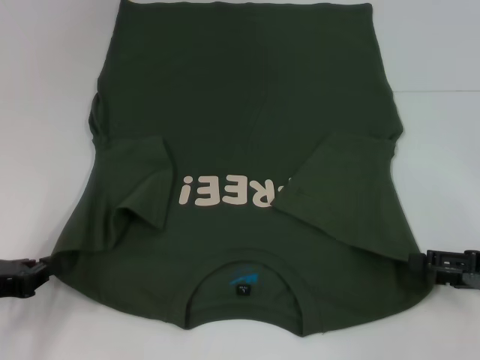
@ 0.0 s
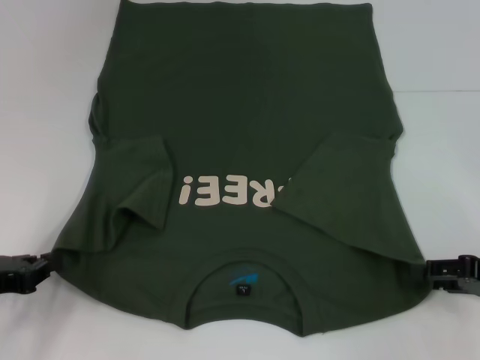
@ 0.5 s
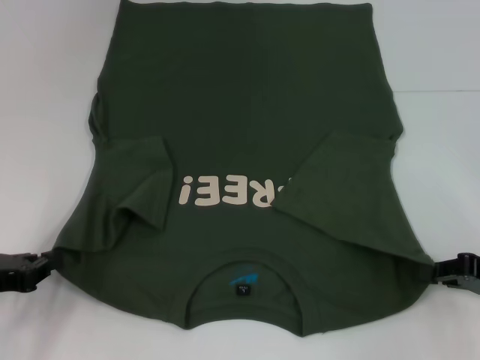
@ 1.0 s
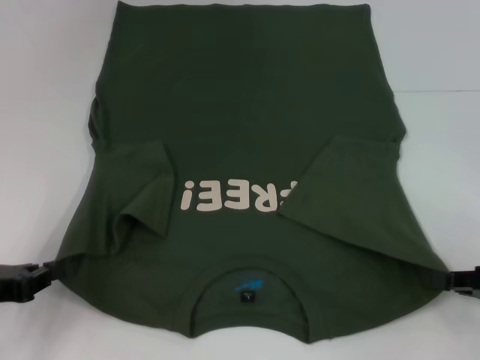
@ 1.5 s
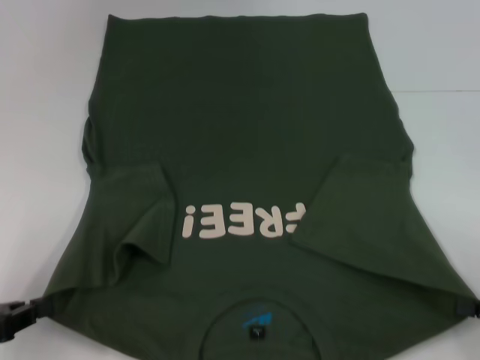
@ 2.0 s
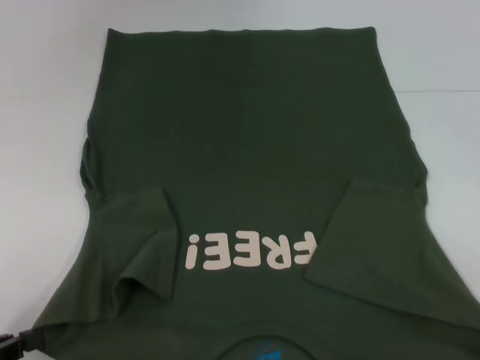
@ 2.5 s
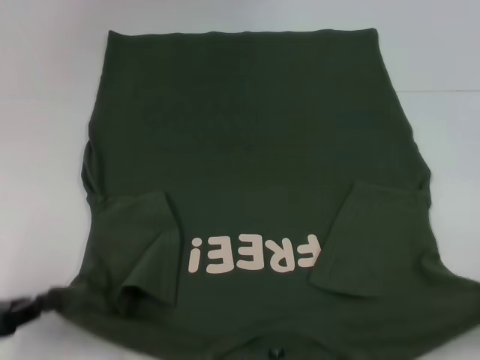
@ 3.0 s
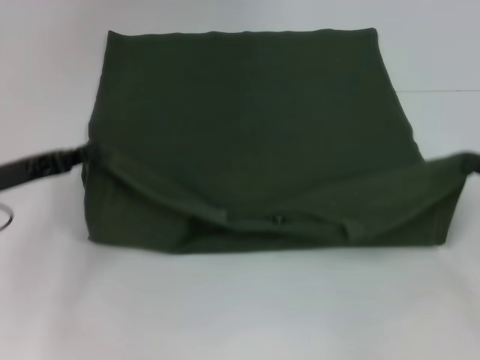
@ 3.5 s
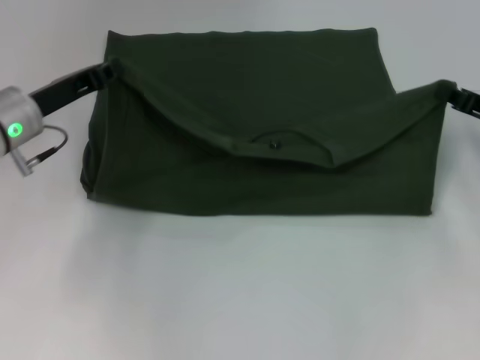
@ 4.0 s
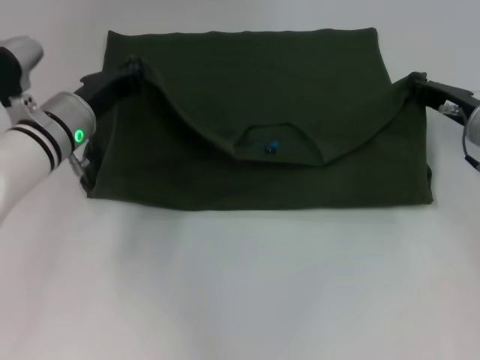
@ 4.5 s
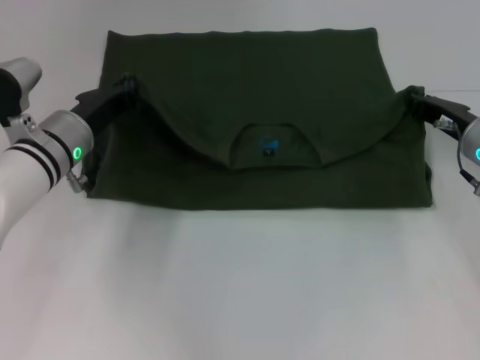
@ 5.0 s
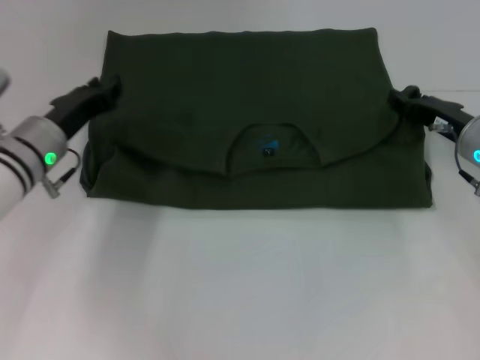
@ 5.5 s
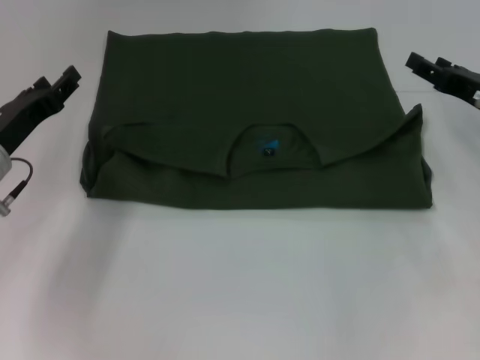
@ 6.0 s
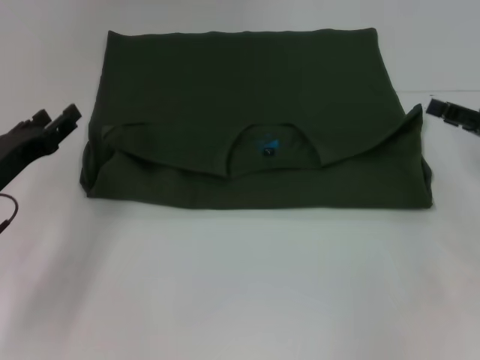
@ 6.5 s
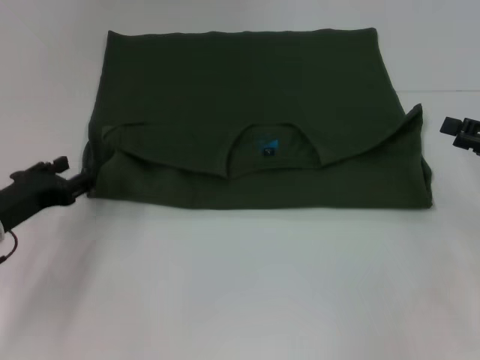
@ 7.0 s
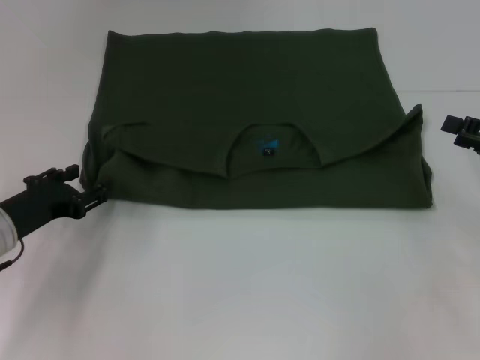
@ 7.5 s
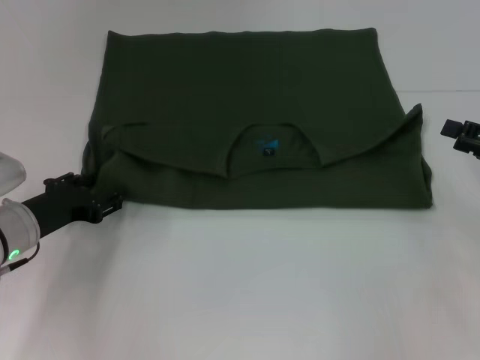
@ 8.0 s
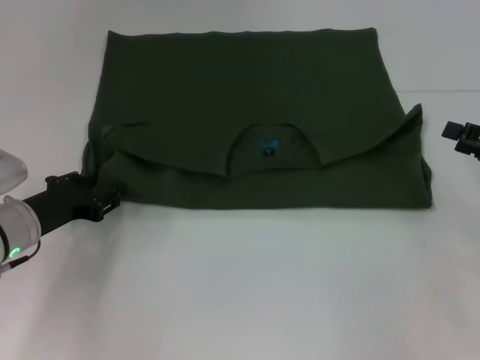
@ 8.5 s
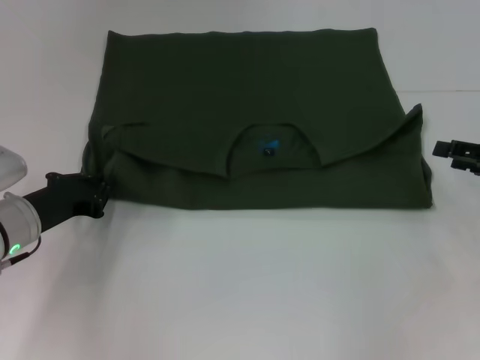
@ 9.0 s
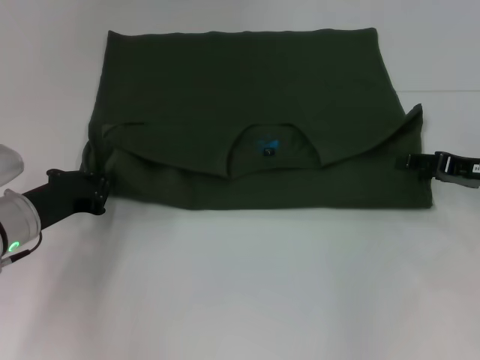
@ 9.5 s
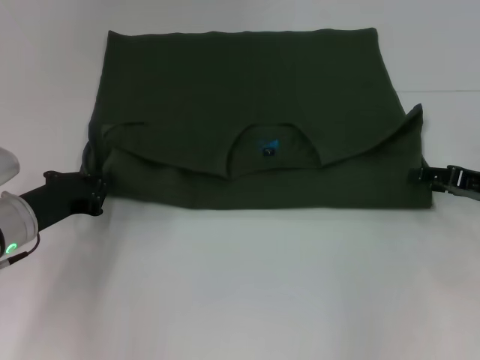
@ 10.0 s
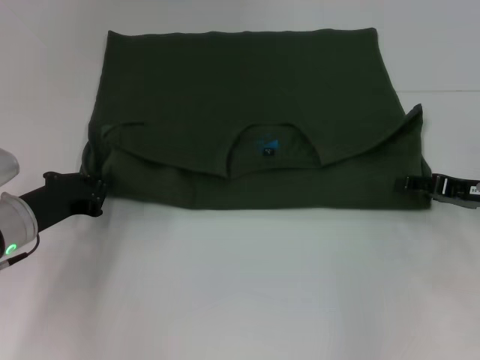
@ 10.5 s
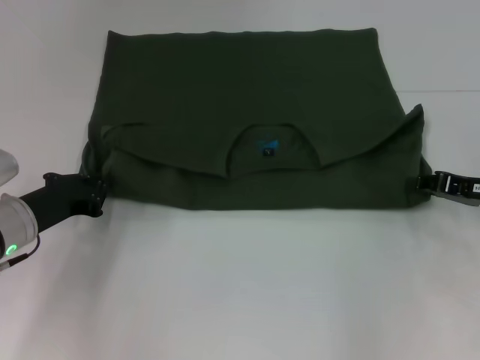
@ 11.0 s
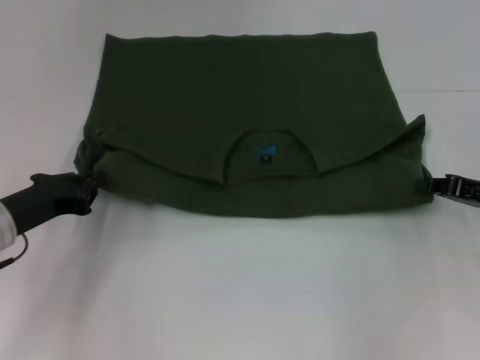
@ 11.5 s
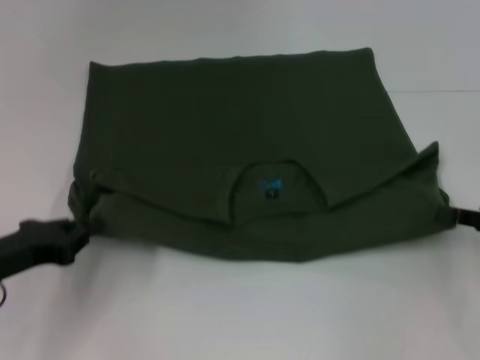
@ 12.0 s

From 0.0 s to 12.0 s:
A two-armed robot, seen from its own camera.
Step, from 1.5 s to 6.0 s: Fold the clothes with your left hand.
Step, from 1.5 s to 6.0 s: Fold the clothes with your right hand.
From 0.0 s to 2.0 s: The right gripper moves backward, some 5 cm, and closes.
From 2.0 s to 4.0 s: The right gripper moves forward, some 15 cm. Meanwhile the left gripper travels forward and to the right by approximately 20 cm.
From 4.0 s to 6.0 s: The left gripper goes to the right and returns, approximately 5 cm each way, and opens. Meanwhile the right gripper opens its fingers.
From 6.0 s to 8.0 s: The right gripper heads backward and to the right, covering approximately 10 cm. The left gripper changes place by roughly 5 cm.
From 8.0 s to 10.0 s: The left gripper closes; the right gripper shifts by some 5 cm.
From 10.0 s to 12.0 s: The two grippers go approximately 5 cm backward. The right gripper closes its fingers.

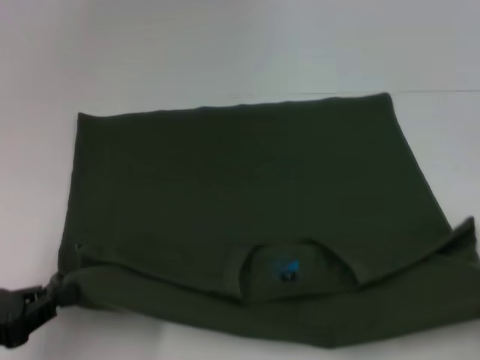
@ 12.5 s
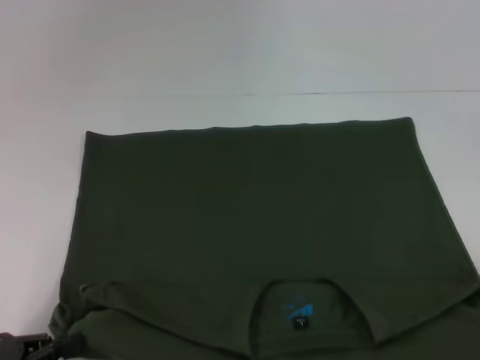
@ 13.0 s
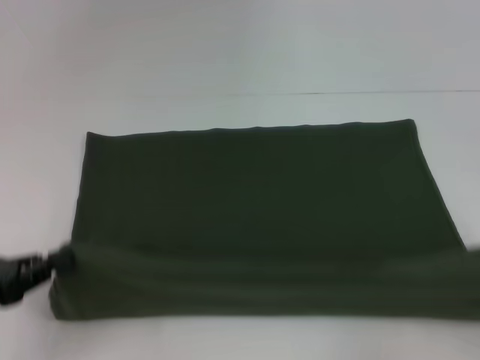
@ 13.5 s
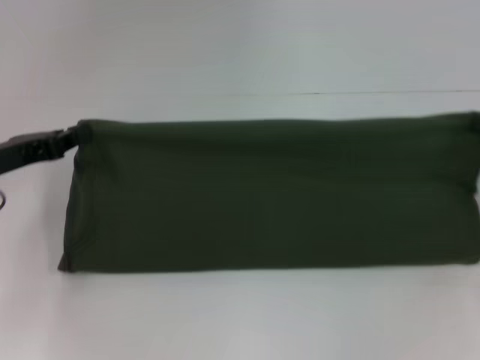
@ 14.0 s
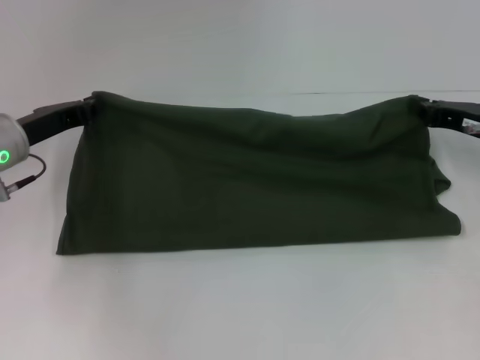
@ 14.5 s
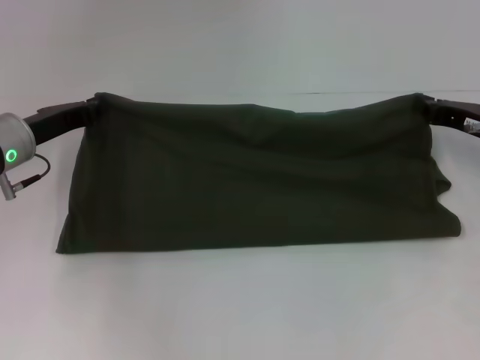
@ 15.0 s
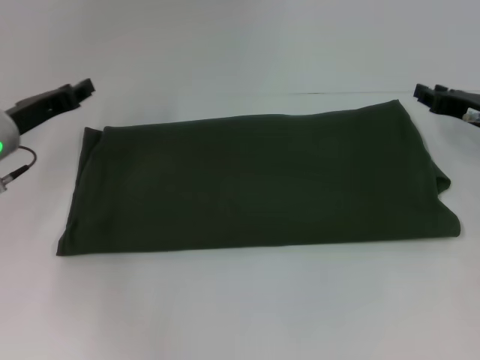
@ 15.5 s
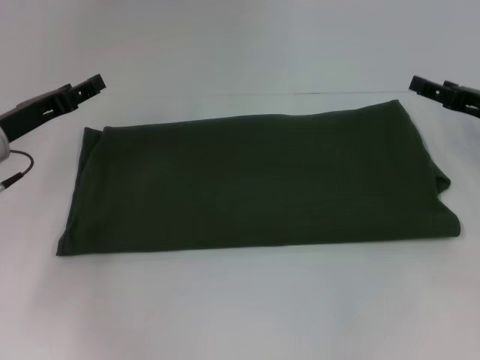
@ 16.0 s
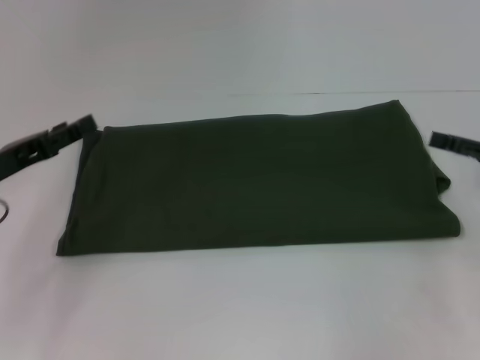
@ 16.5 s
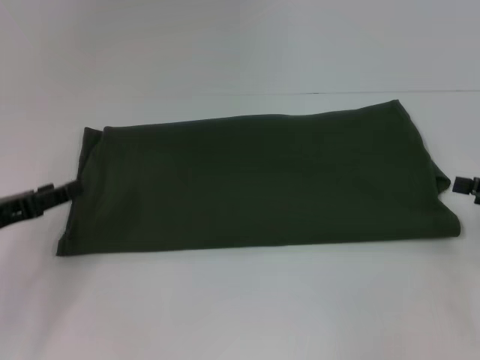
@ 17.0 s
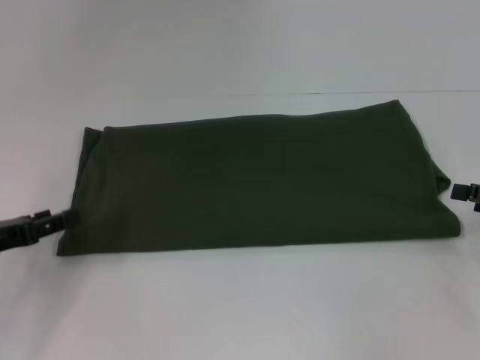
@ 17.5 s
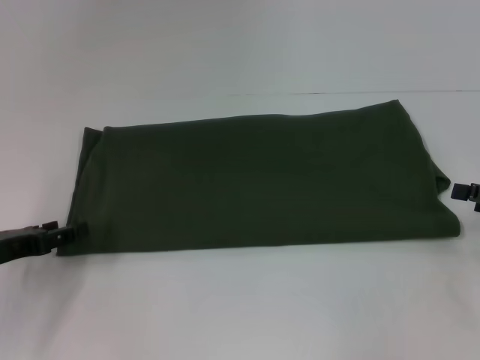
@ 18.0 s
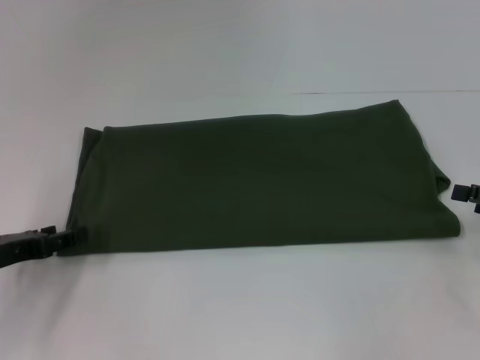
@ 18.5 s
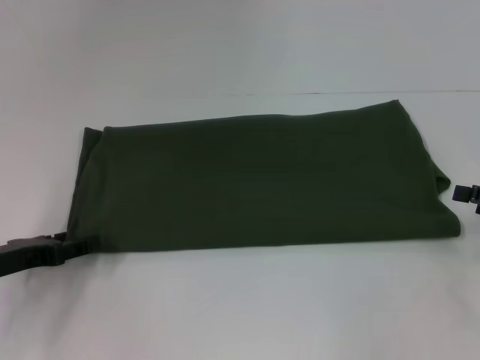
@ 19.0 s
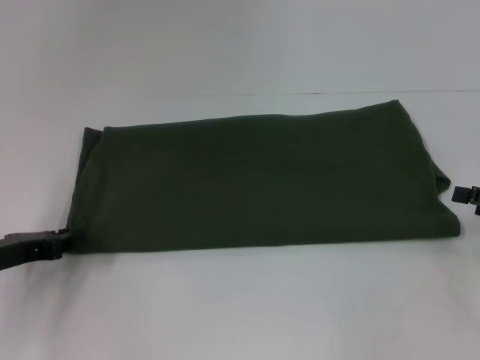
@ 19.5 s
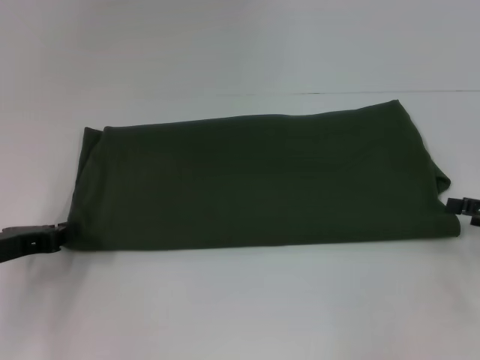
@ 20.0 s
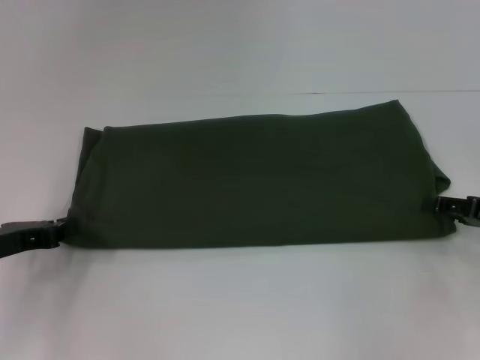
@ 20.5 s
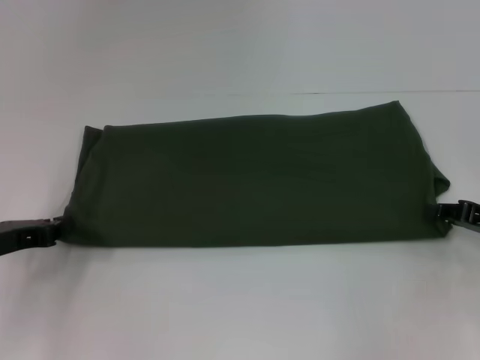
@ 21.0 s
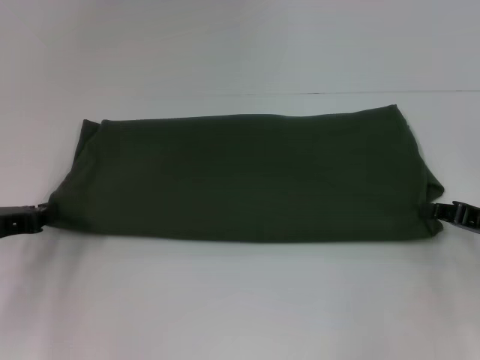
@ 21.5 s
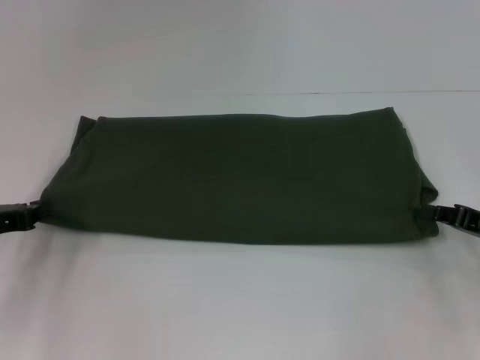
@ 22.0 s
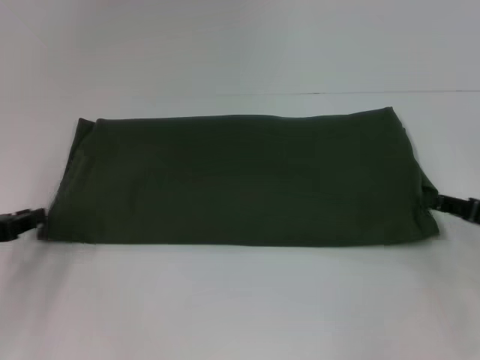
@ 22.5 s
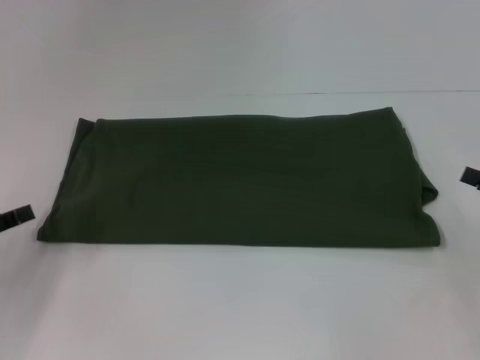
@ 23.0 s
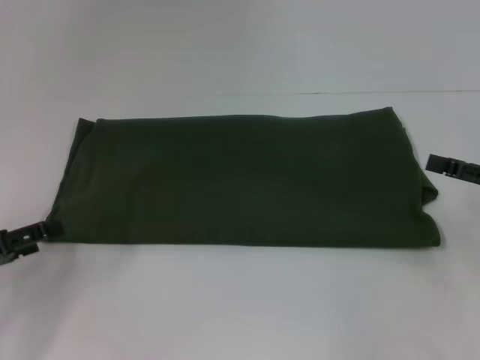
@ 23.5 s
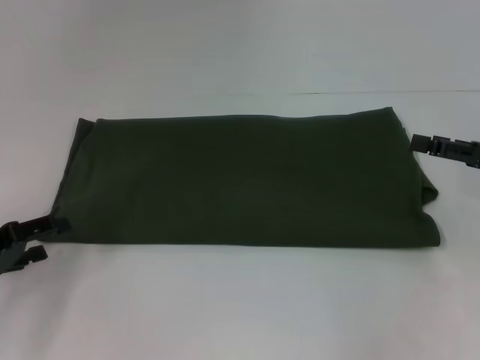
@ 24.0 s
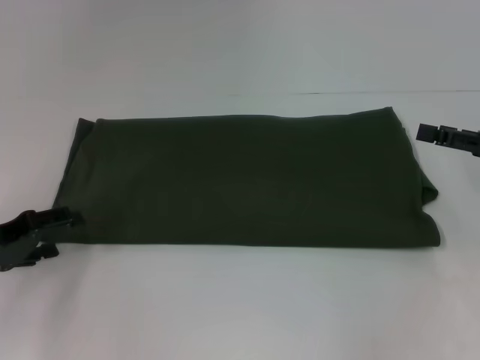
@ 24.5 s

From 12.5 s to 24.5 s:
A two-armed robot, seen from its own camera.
Step, from 13.5 s to 15.0 s: Fold the clothes with your right hand.
From 12.5 s to 14.5 s: The left gripper travels forward by approximately 20 cm. The right gripper goes some 25 cm forward and to the left.
From 14.5 s to 16.5 s: The right gripper heads backward and to the right, covering roughly 10 cm, and opens its fingers. The left gripper is displaced backward by about 5 cm, and opens its fingers.
From 16.5 s to 18.5 s: The left gripper changes place by some 5 cm.
From 18.5 s to 20.5 s: The left gripper closes.
From 20.5 s to 22.5 s: The right gripper closes its fingers.
From 22.5 s to 24.5 s: The right gripper travels upward by about 5 cm, and opens up. The left gripper opens up.

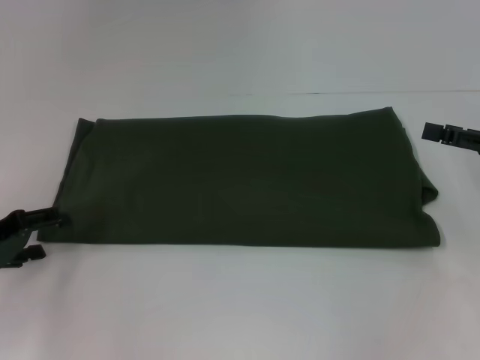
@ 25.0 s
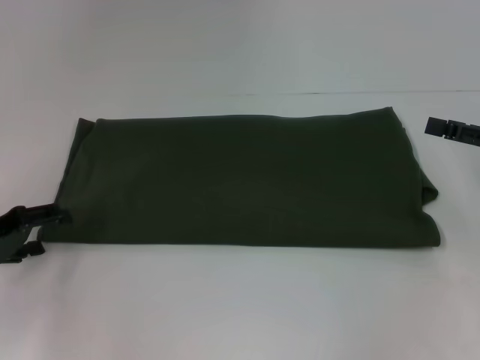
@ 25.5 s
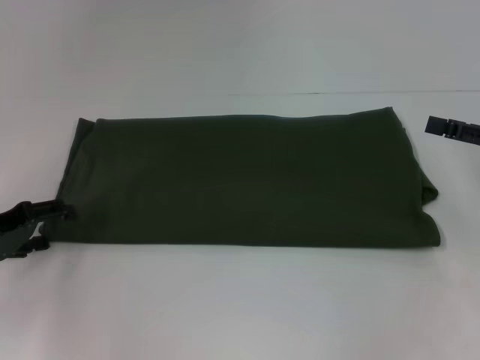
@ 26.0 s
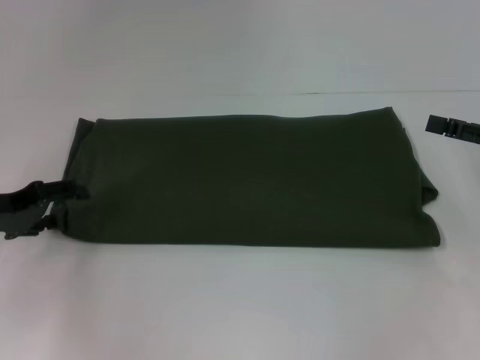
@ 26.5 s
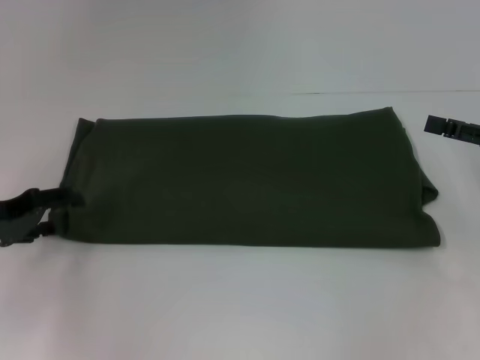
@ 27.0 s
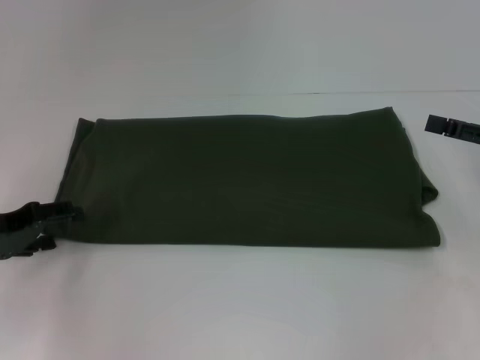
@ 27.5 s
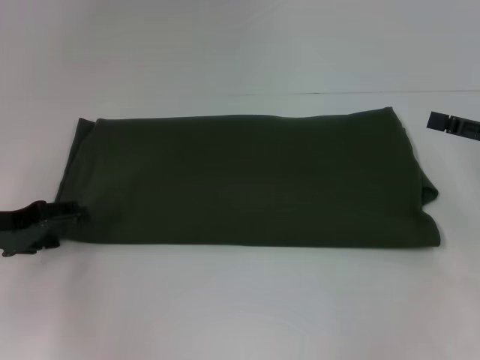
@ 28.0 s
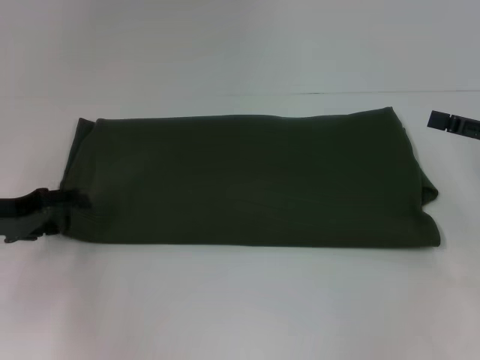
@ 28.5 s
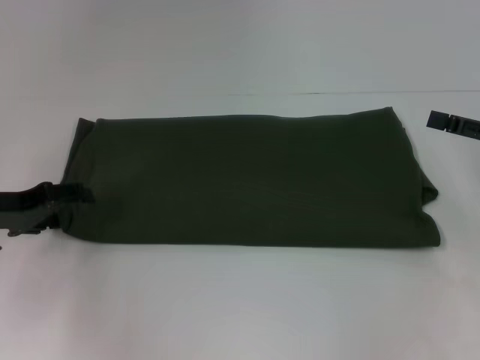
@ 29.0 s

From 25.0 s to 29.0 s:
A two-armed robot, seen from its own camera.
From 25.0 s to 29.0 s: The grippers stay close to where they were, moving slightly.
